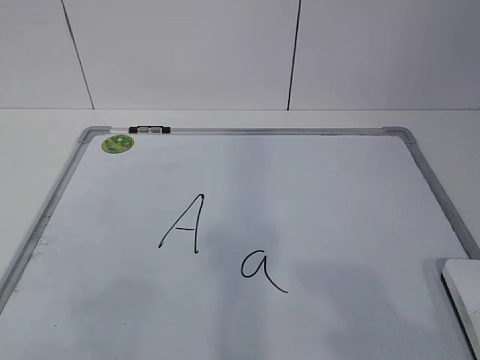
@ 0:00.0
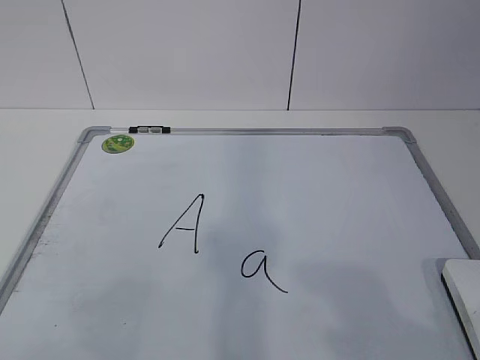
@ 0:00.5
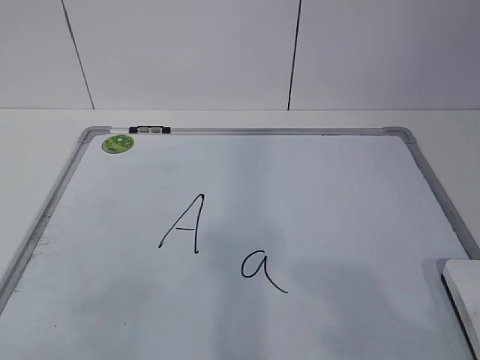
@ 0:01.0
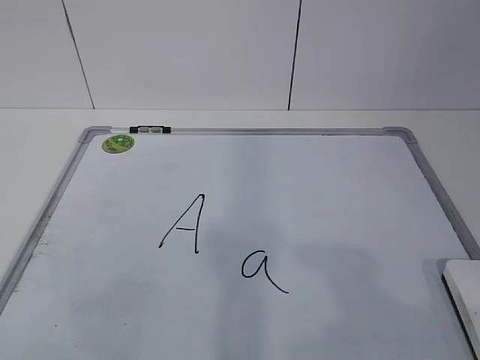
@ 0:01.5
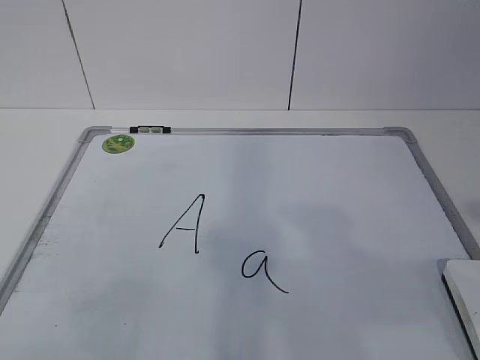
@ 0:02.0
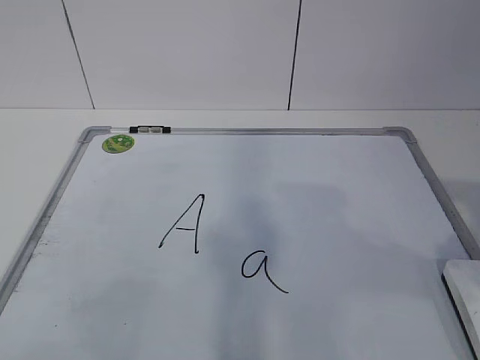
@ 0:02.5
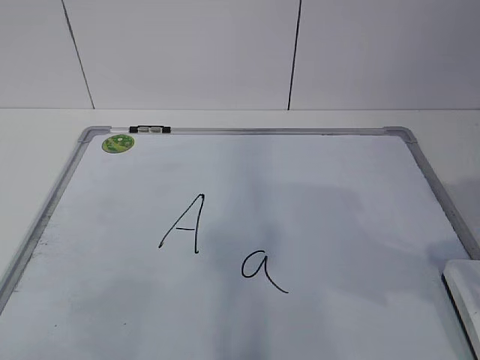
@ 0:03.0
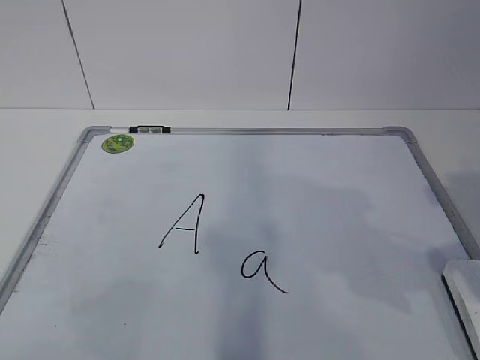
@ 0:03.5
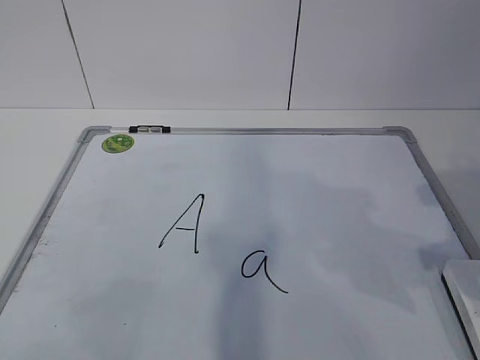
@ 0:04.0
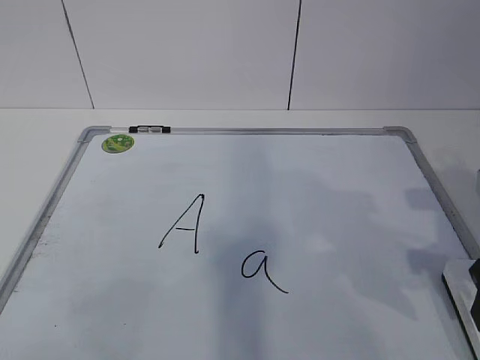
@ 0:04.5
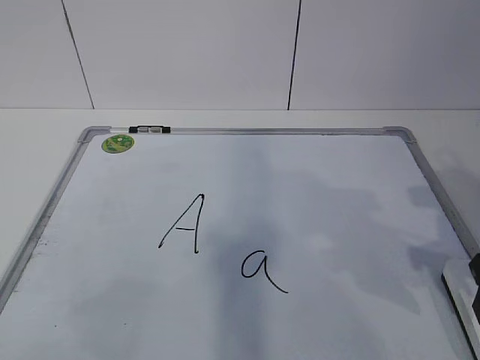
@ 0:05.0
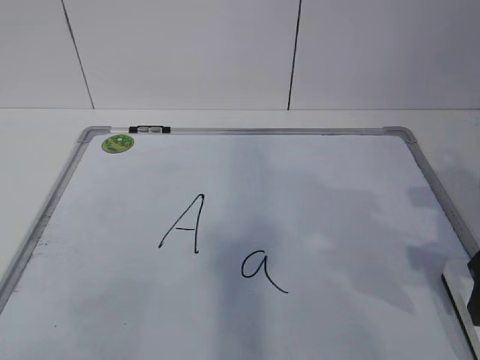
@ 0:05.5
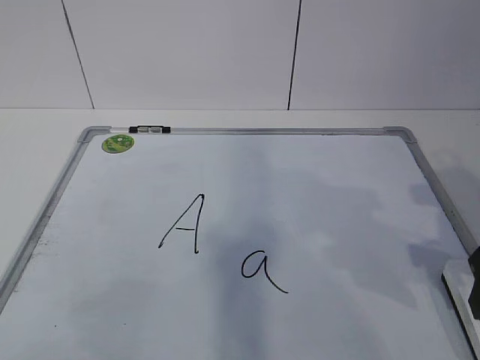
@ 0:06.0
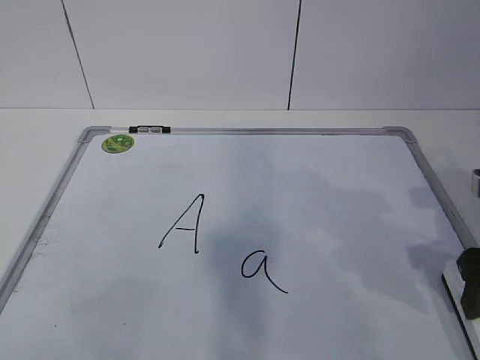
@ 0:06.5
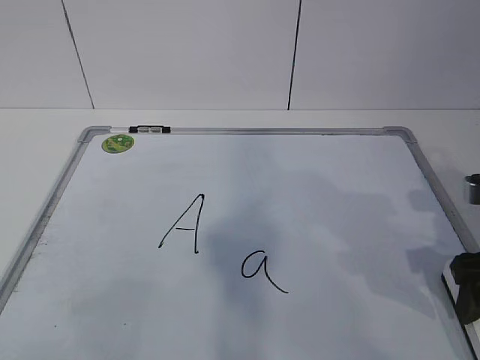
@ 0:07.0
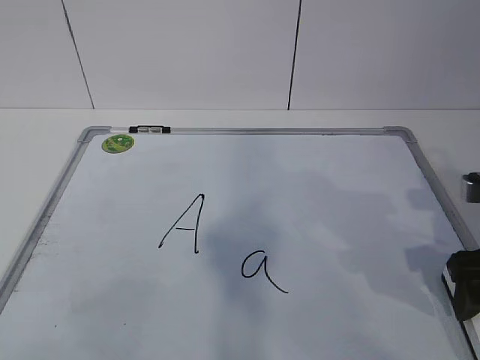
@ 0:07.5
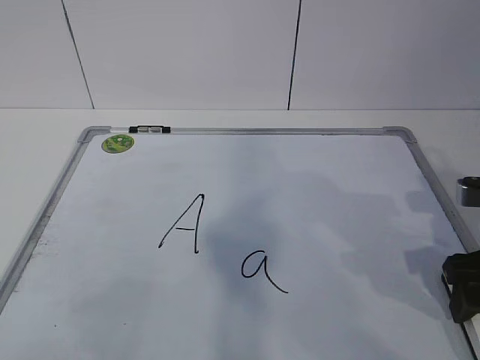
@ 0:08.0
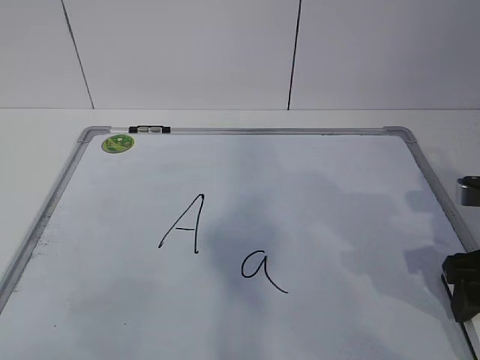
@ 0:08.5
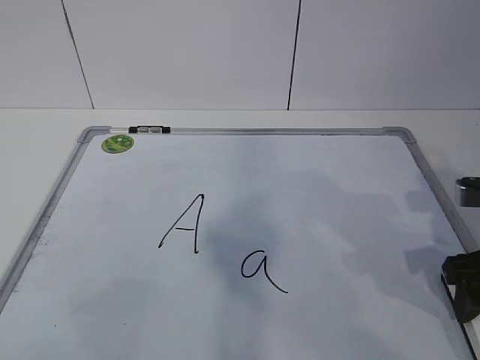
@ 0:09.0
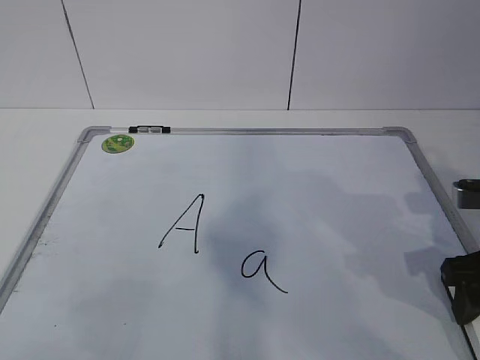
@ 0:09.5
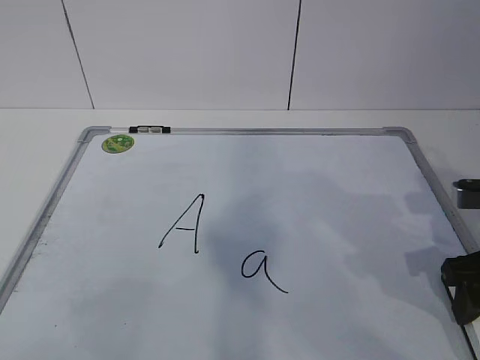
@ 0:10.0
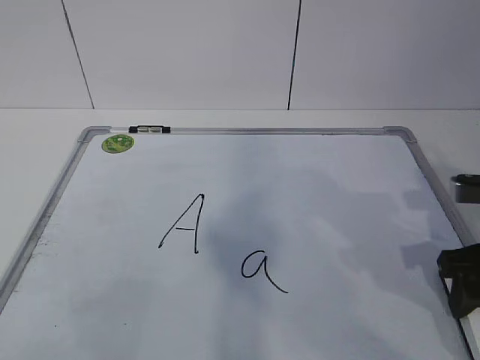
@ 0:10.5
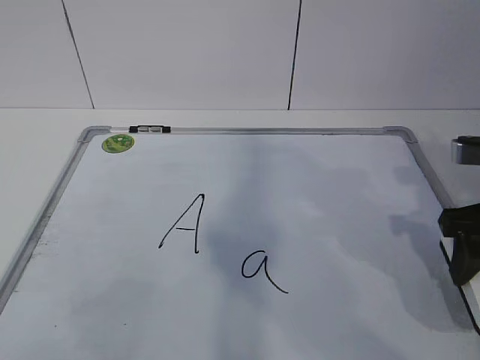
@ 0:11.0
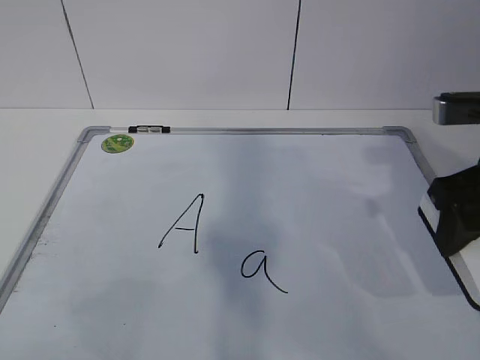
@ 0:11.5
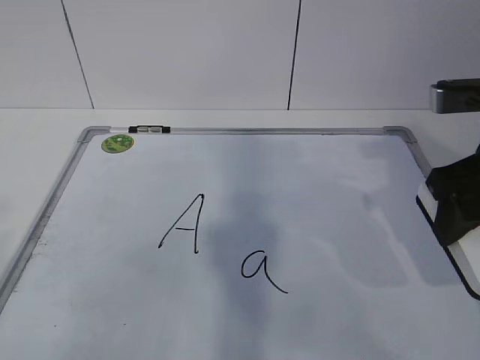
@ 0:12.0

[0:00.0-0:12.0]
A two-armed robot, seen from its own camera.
Task of the whole recording: pick up the eraser on the blackboard and erase the letter "a".
0:02.0 to 0:04.0: The right gripper moves forward and downward, roughly 15 cm.
0:06.0 to 0:08.0: The grippers move only a little.
0:10.0 to 0:12.0: The right gripper heads upward, covering roughly 10 cm.

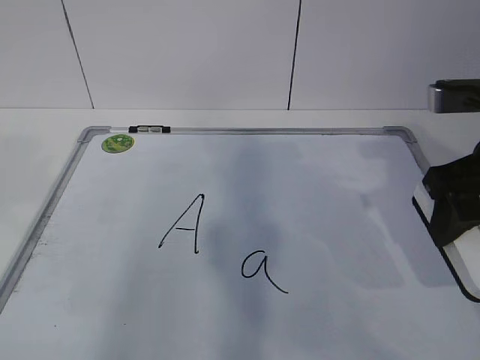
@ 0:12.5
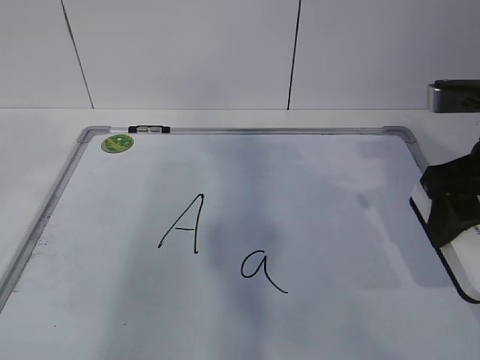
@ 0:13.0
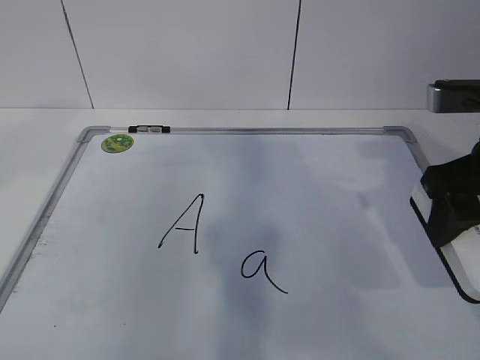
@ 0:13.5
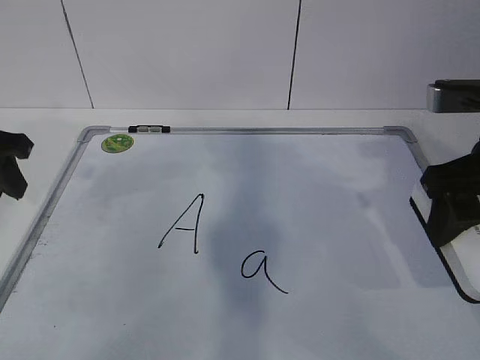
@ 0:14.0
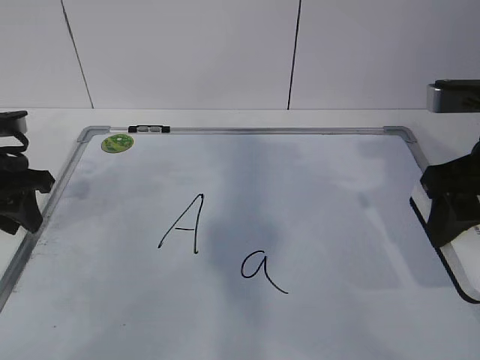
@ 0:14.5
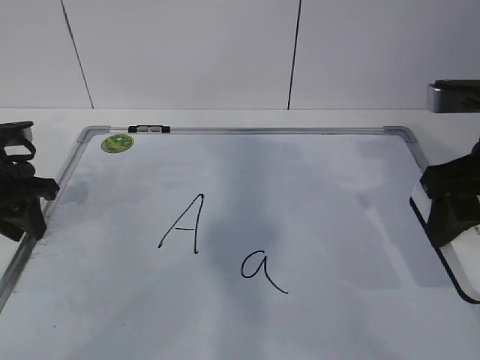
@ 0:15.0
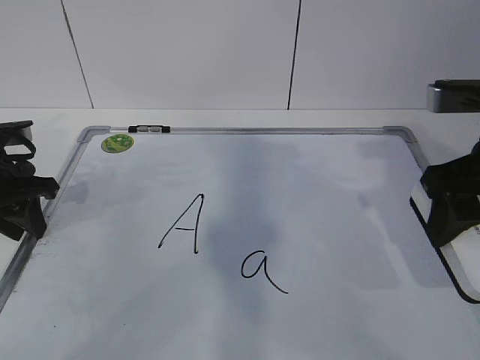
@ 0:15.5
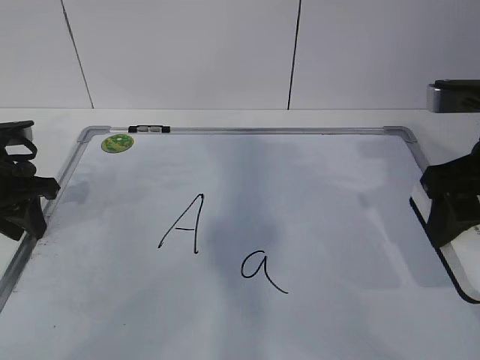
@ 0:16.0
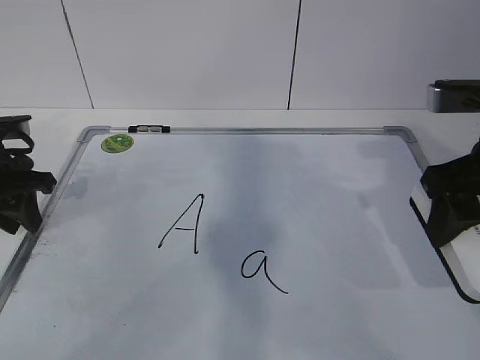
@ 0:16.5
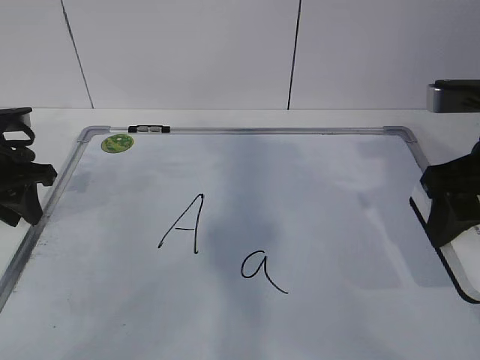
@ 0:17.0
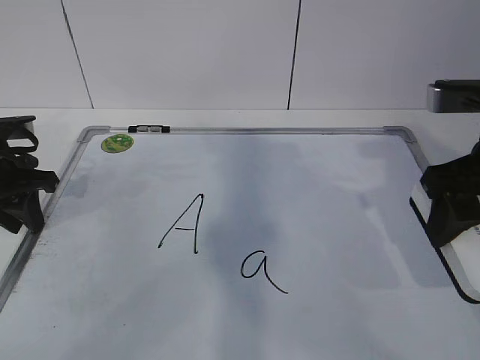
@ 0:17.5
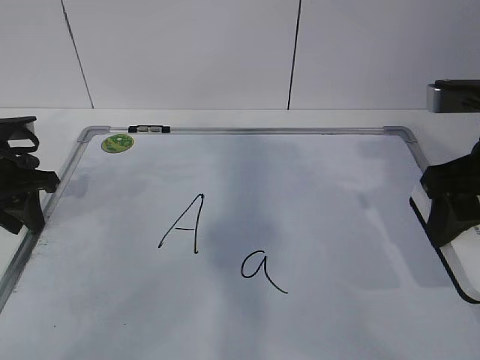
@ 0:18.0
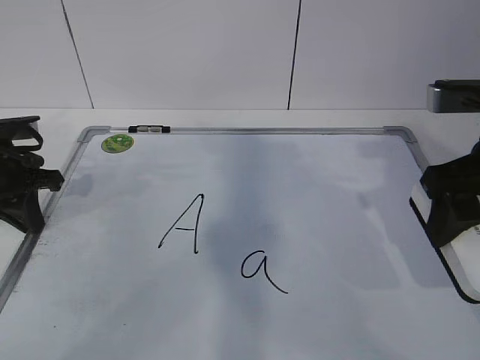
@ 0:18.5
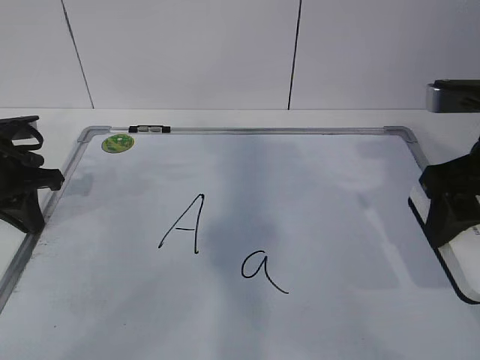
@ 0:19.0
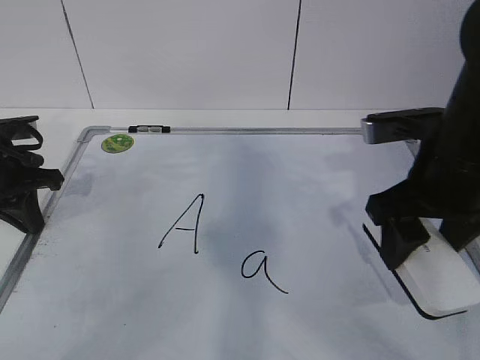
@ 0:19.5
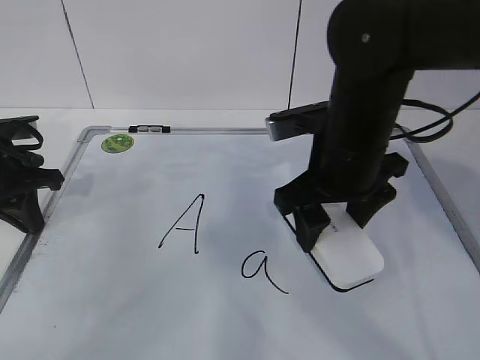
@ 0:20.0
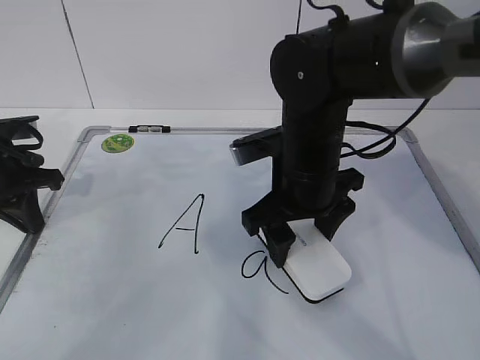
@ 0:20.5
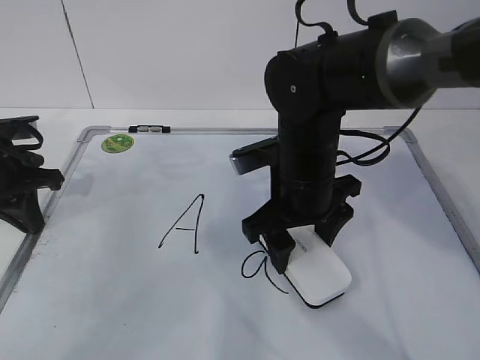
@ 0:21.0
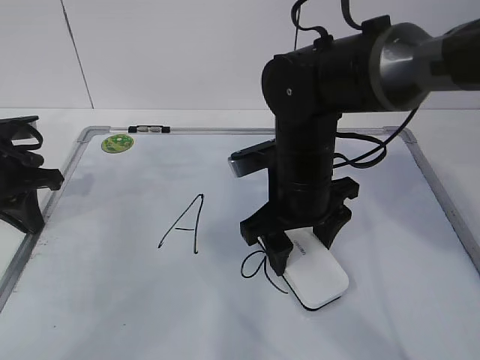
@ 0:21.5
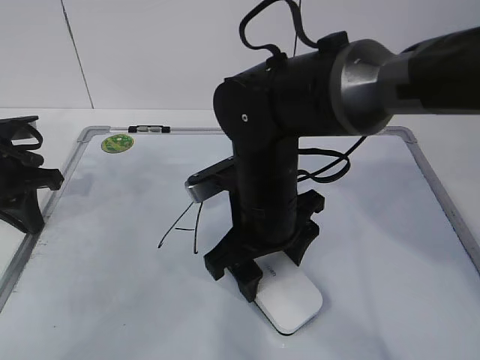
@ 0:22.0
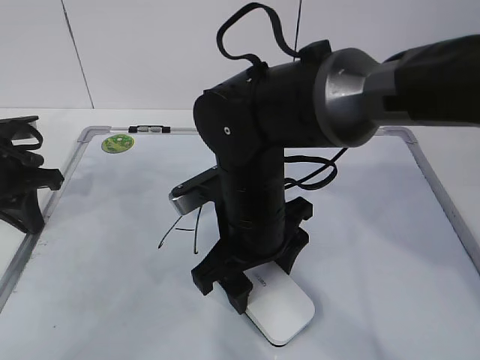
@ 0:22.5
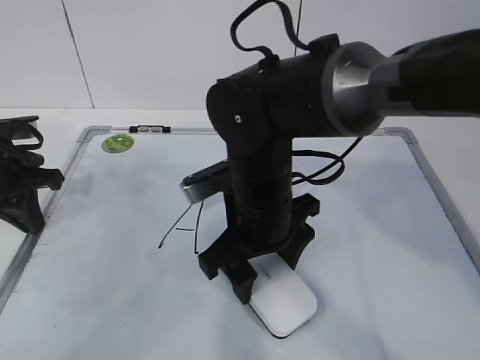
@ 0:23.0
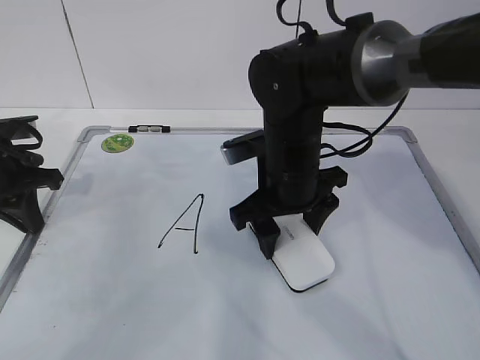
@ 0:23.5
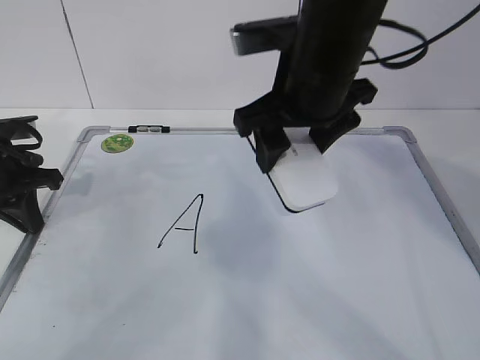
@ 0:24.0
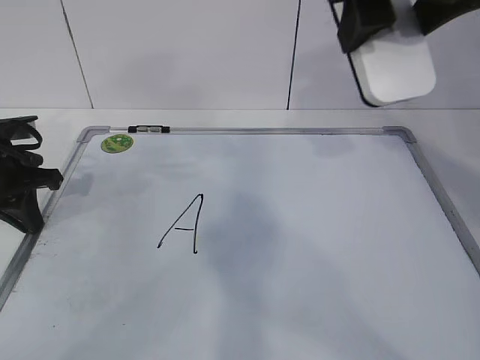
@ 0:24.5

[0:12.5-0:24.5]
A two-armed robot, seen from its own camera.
Task of the whole recording: pick up the eraser on the blackboard and erase the letter "a".
Step, 0:12.5 to 0:15.0: Hold the drawing board steady with your left hand.
Step, 0:15.5 to 0:19.5: Erase the letter a with your right hand.
0:12.5 to 0:14.5: The left gripper goes some 35 cm forward and downward.
0:16.5 to 0:18.5: The left gripper closes up.
0:18.5 to 0:20.5: The right gripper is displaced to the left, downward and forward by roughly 20 cm.
0:20.5 to 0:22.5: The right gripper heads to the left, covering roughly 5 cm.
0:22.5 to 0:24.5: The right gripper shifts some 25 cm upward and to the right.

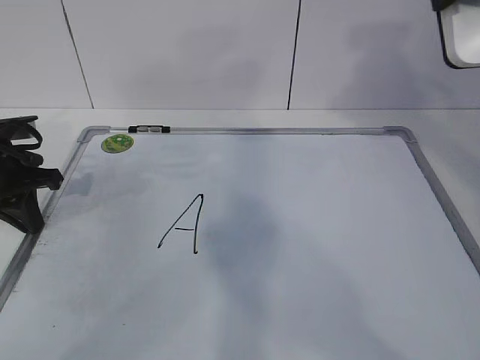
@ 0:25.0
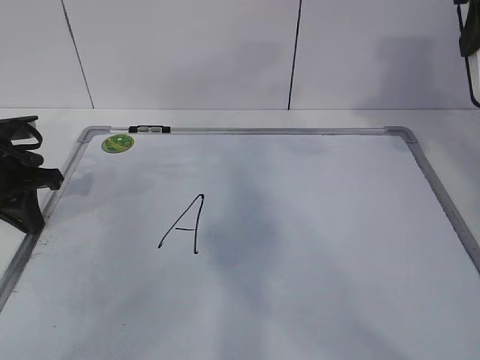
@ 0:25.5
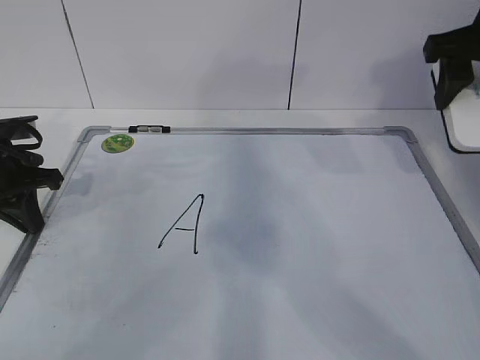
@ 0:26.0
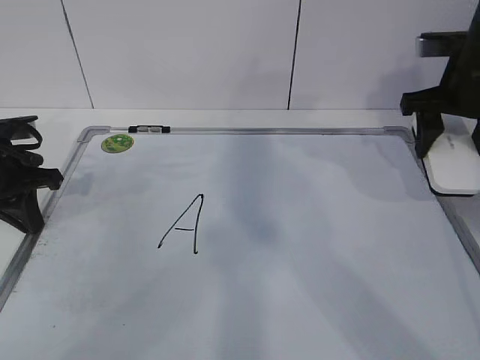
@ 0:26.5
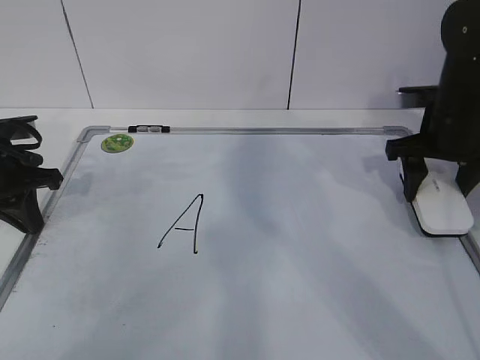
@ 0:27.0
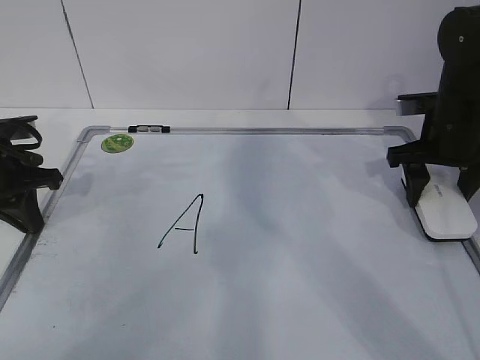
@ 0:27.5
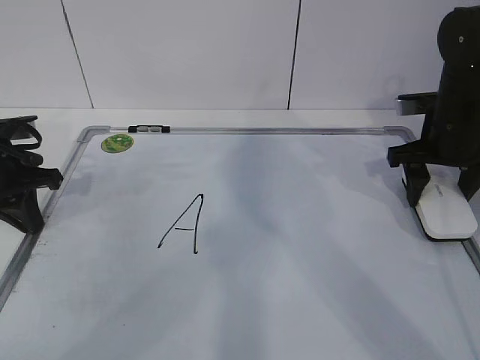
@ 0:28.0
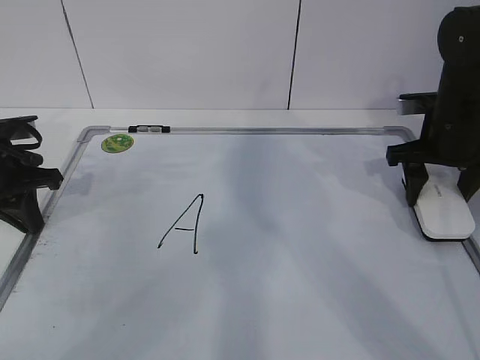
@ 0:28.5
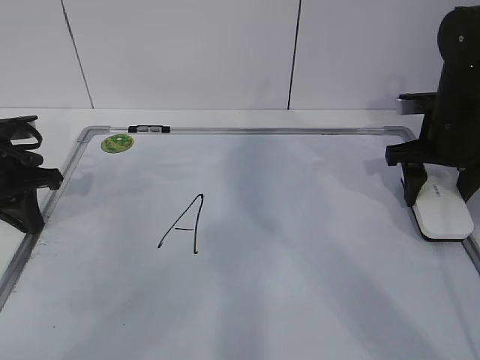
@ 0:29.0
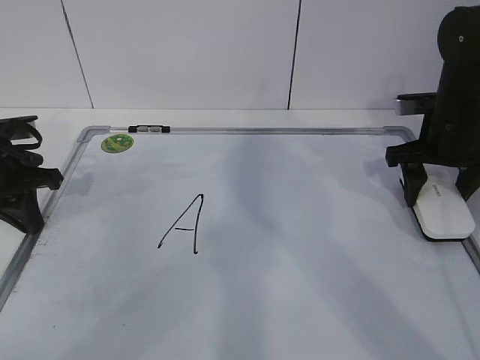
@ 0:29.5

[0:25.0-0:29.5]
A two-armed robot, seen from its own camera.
Task of the whole recording: pick up the eraser on the blackboard and erase the letter "a".
0:25.0 to 0:27.0: The right gripper goes some 25 cm downward and forward.
0:27.0 to 0:29.5: The two grippers keep their place.
